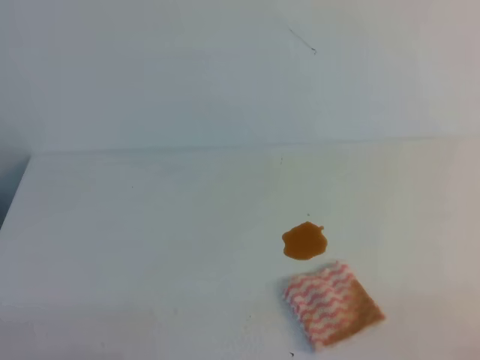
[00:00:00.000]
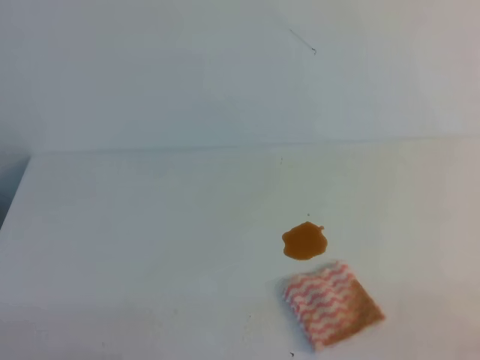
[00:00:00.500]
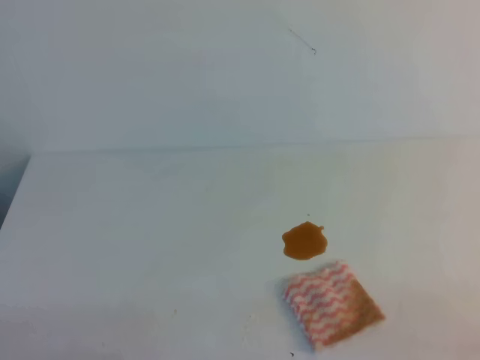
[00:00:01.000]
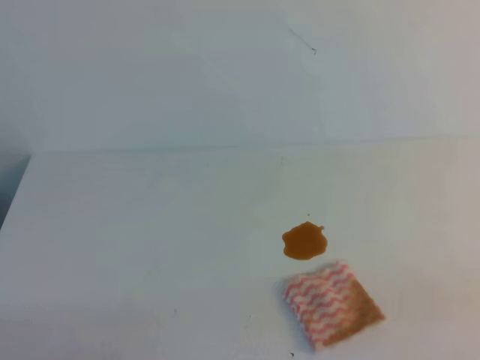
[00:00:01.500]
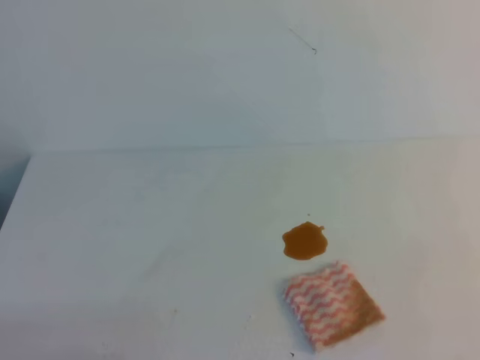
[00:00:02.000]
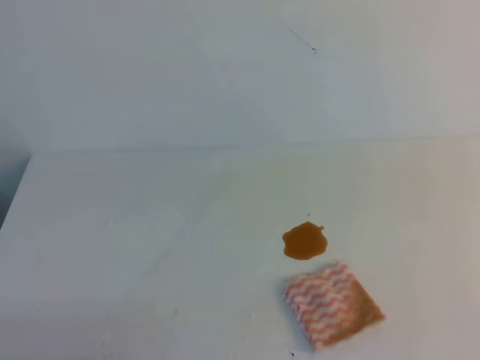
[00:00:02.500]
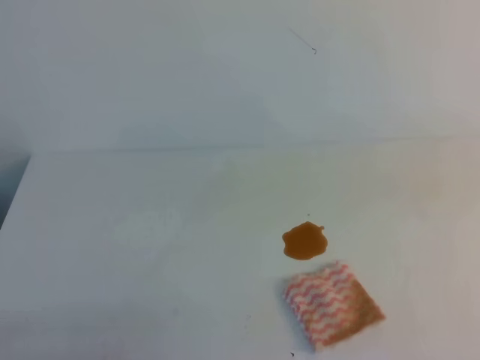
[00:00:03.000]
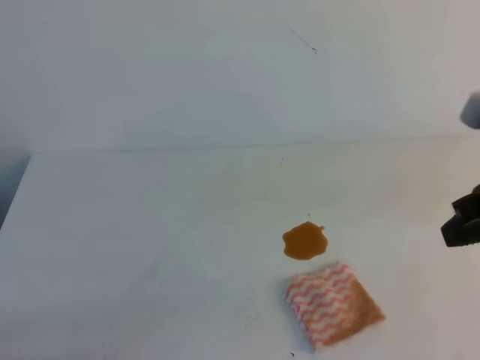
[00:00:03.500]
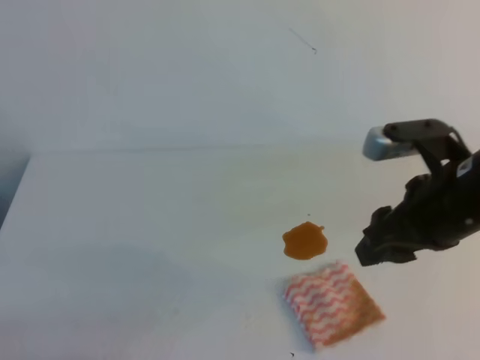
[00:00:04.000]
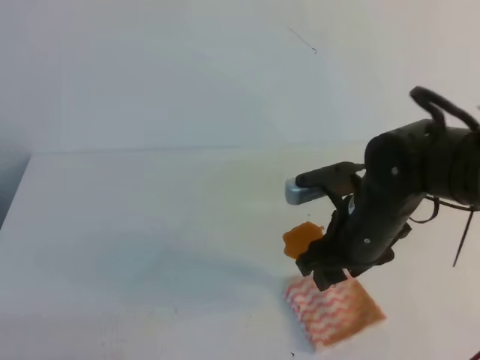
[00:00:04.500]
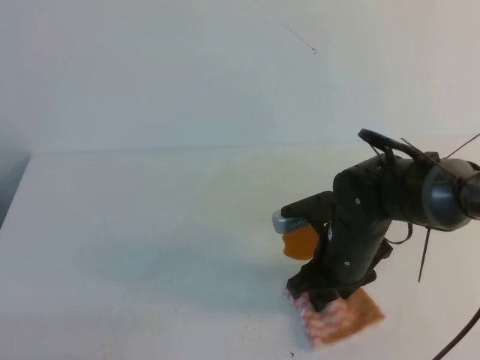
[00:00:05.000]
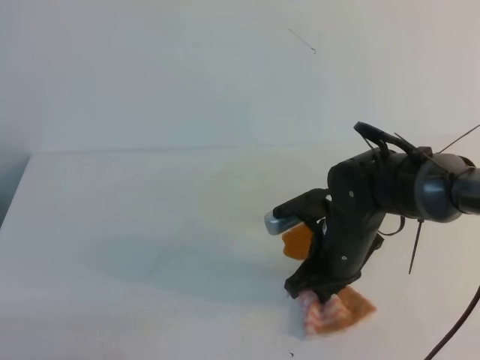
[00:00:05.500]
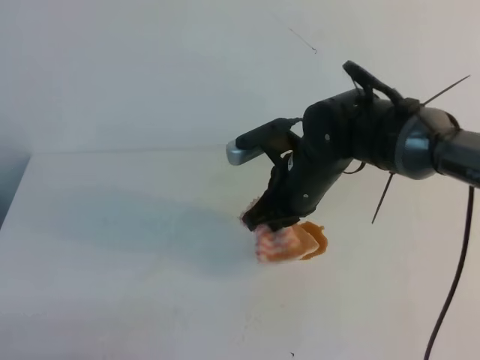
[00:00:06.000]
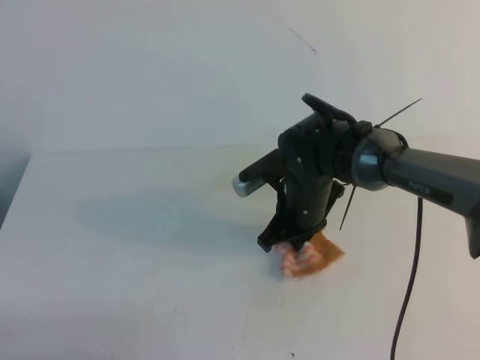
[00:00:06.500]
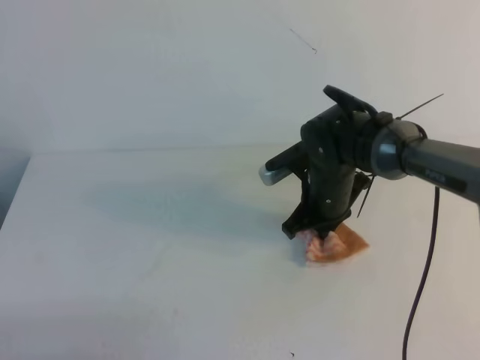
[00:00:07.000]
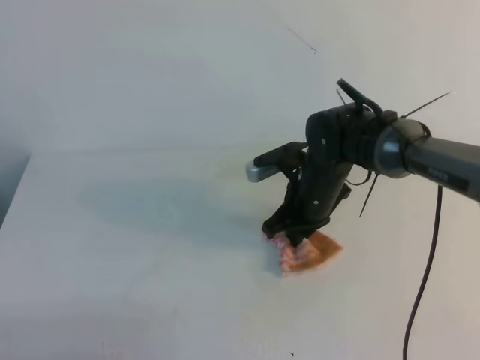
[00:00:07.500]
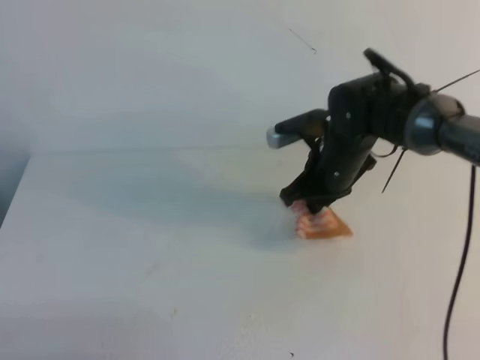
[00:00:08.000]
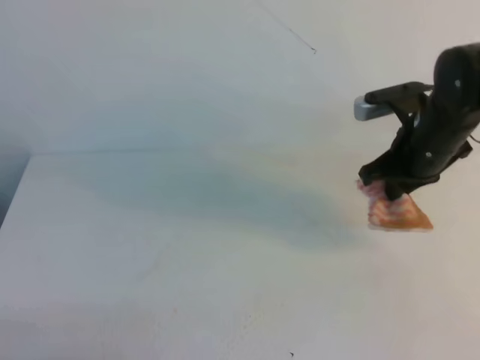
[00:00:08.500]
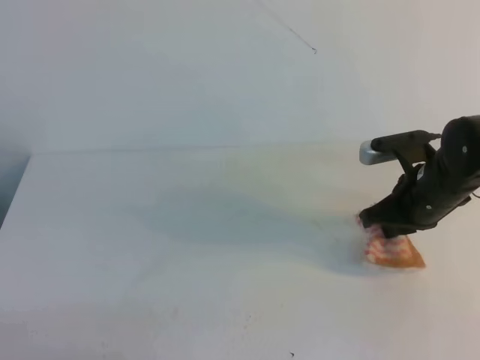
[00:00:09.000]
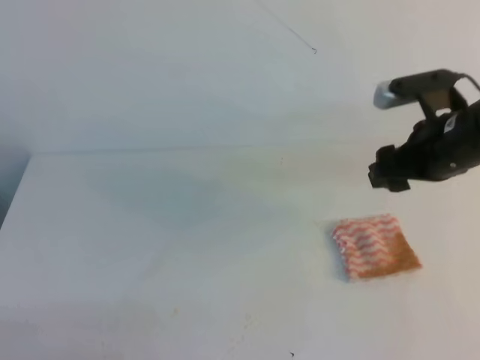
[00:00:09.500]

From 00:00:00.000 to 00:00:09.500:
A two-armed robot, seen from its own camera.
From 00:00:02.000 to 00:00:04.000: The right gripper moves forward and to the left, roughly 30 cm, and opens.
From 00:00:04.000 to 00:00:05.500: The right gripper moves downward, to the left and forward, about 15 cm, and closes up.
From 00:00:05.500 to 00:00:07.500: The right gripper heads forward, covering about 10 cm.
From 00:00:07.500 to 00:00:09.500: The right gripper travels to the right, upward and backward by some 15 cm, and opens up.

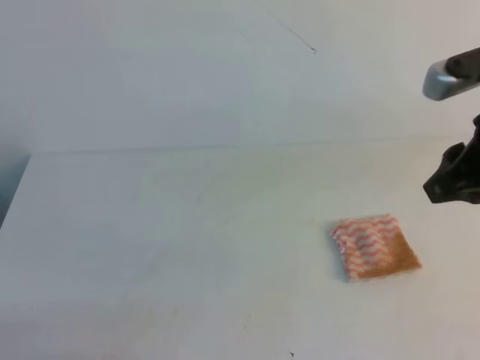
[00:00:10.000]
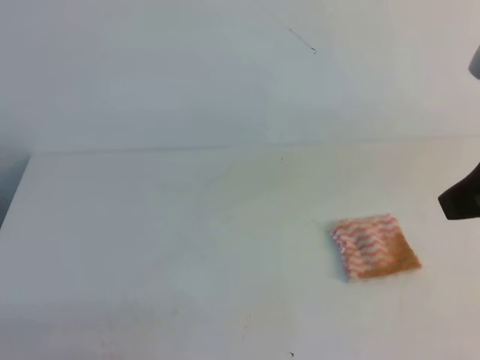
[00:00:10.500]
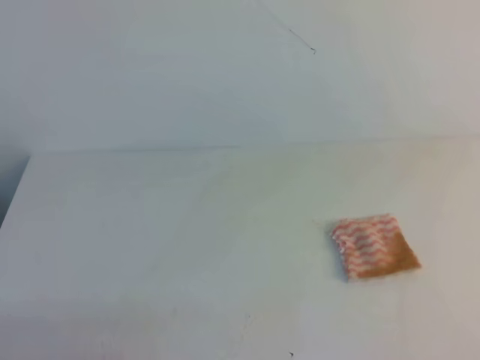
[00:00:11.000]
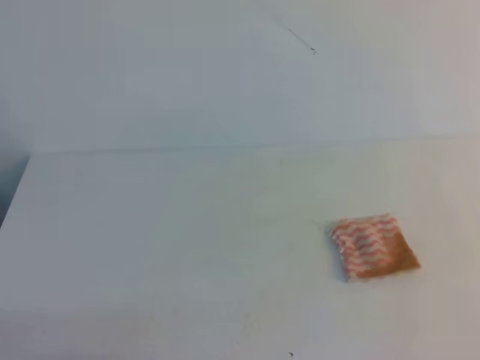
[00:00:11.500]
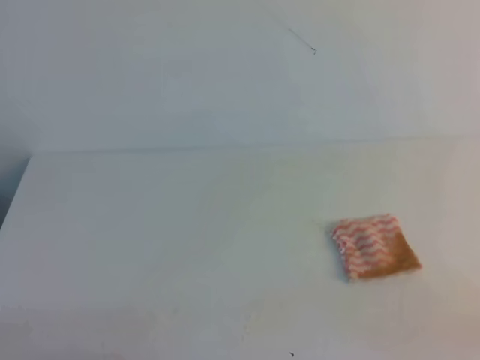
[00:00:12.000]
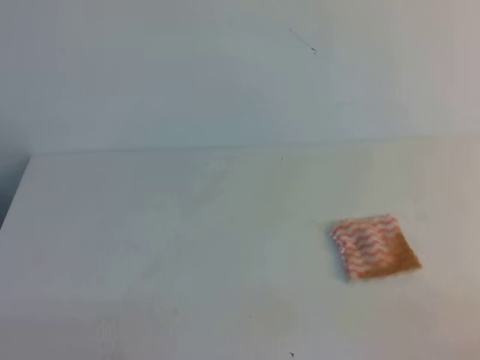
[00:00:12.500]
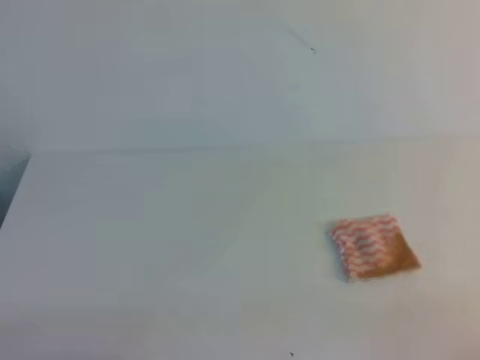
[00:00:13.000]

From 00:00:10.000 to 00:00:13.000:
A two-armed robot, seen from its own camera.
From 00:00:10.000 to 00:00:11.500: The right gripper moves backward and to the right, about 25 cm, and closes up.
